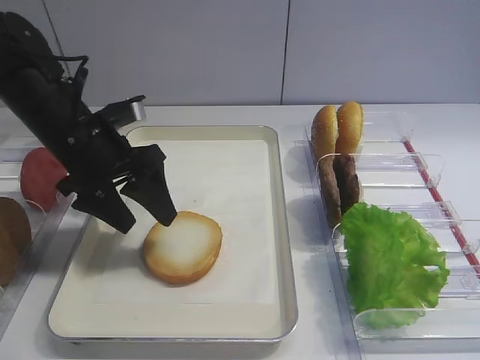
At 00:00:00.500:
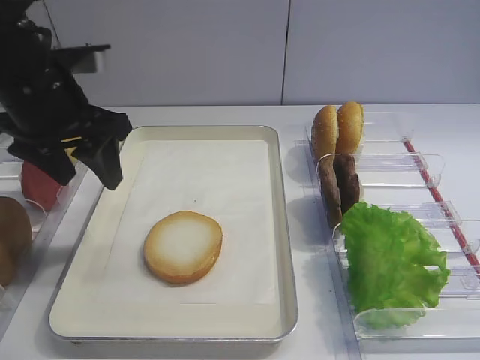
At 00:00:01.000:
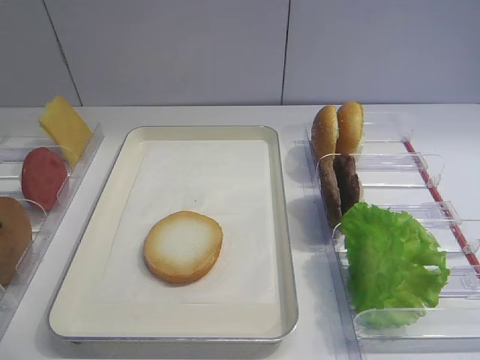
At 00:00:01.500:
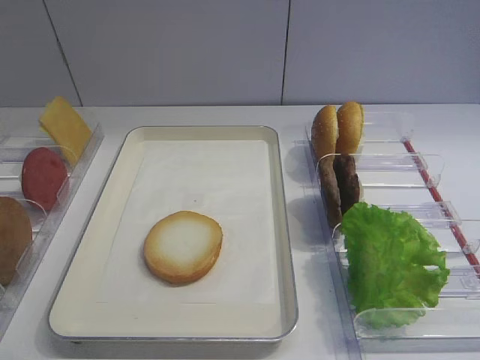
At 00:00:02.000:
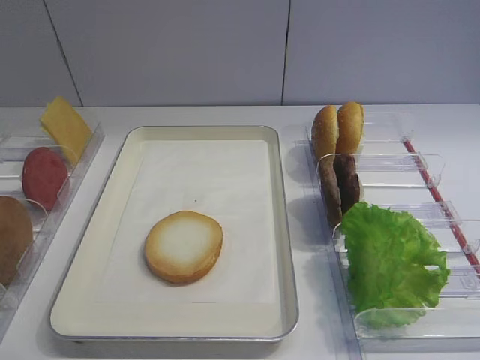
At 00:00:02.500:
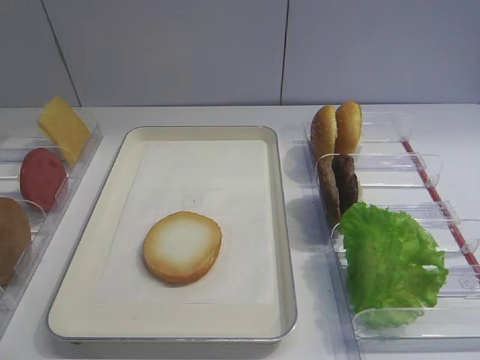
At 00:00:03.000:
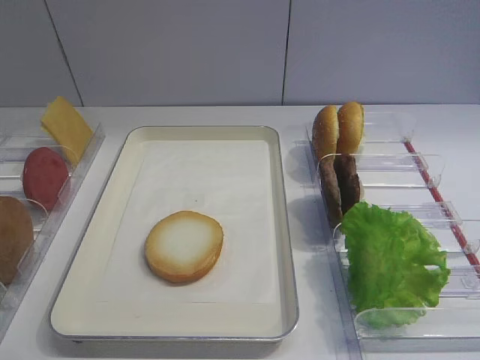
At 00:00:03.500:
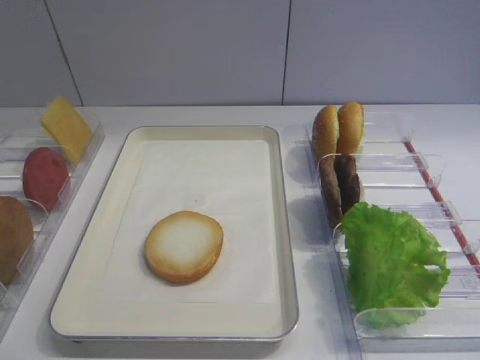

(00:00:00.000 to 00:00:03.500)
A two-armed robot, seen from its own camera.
00:00:00.000 - 00:00:02.000: The left gripper goes some 35 cm backward, and closes.

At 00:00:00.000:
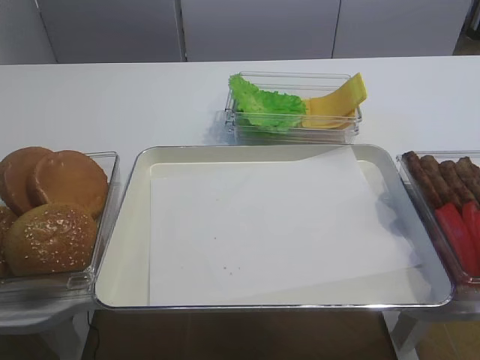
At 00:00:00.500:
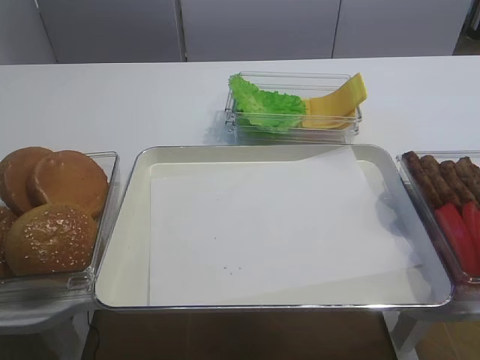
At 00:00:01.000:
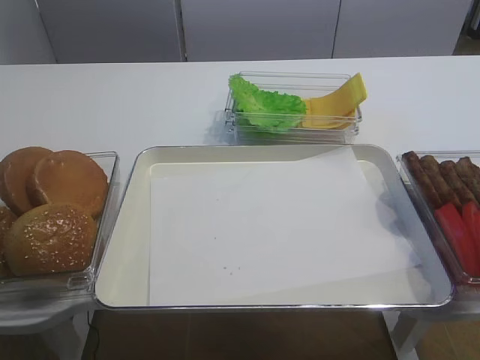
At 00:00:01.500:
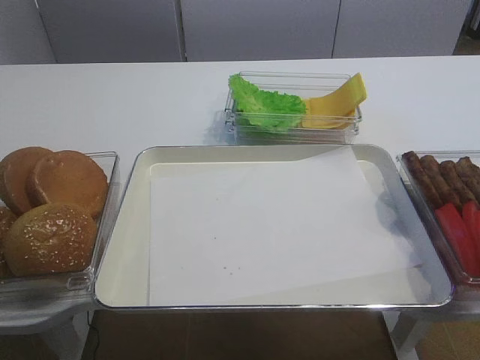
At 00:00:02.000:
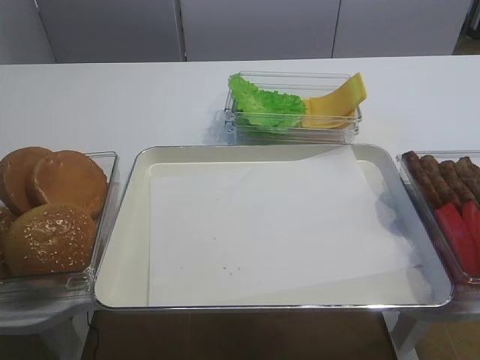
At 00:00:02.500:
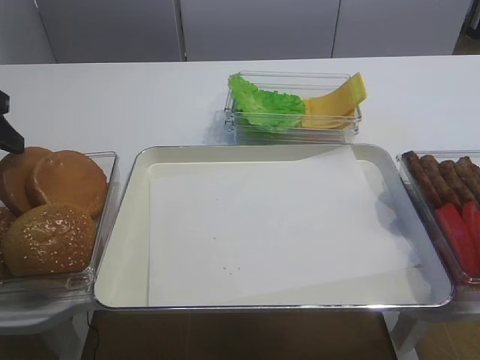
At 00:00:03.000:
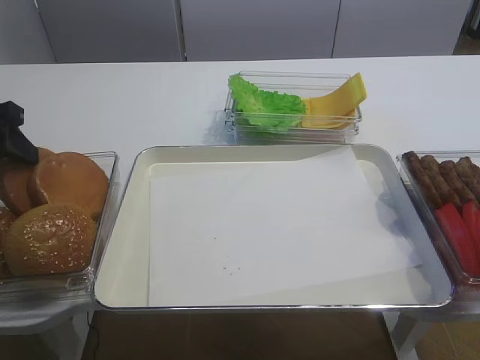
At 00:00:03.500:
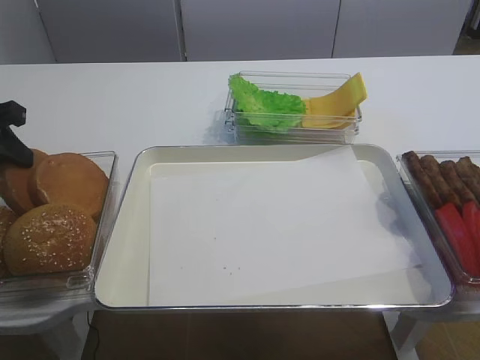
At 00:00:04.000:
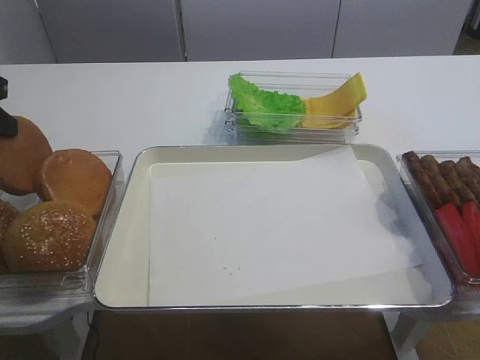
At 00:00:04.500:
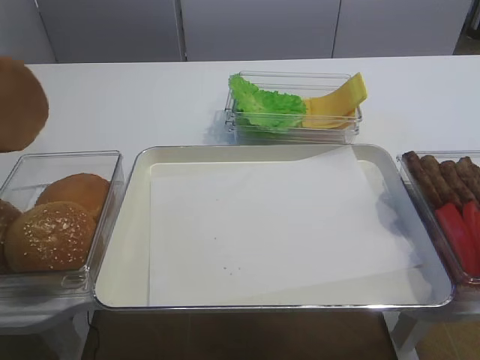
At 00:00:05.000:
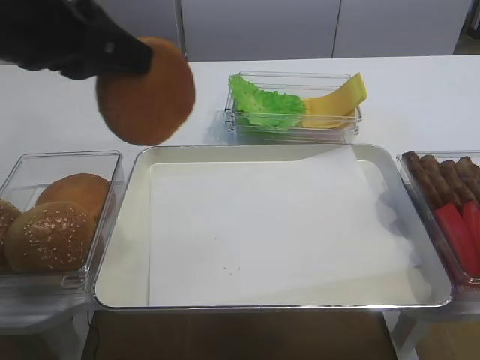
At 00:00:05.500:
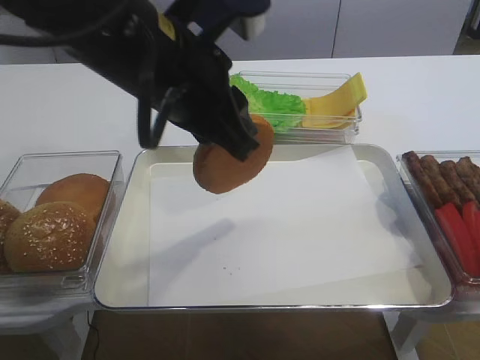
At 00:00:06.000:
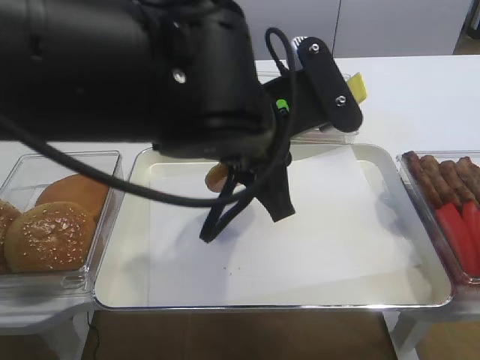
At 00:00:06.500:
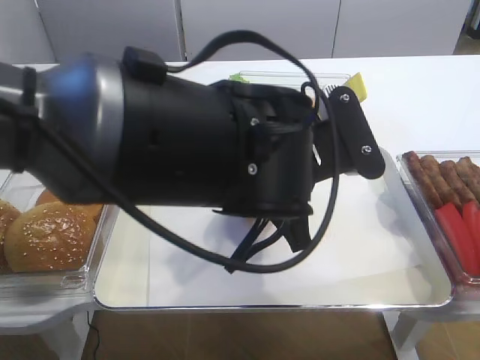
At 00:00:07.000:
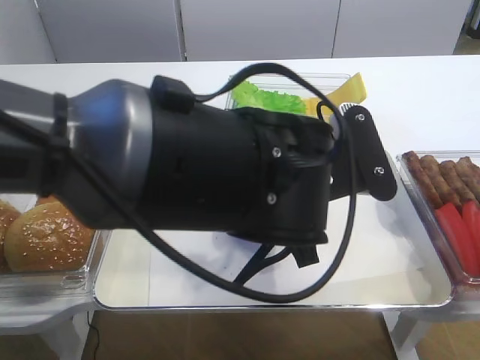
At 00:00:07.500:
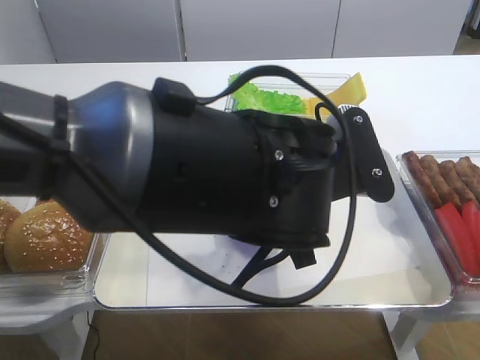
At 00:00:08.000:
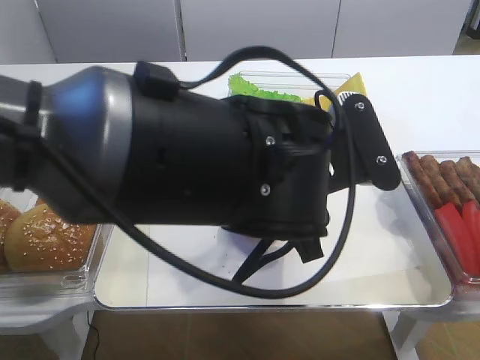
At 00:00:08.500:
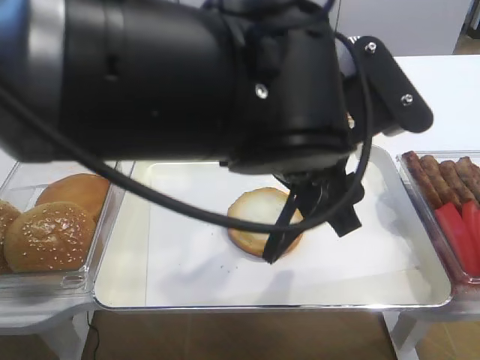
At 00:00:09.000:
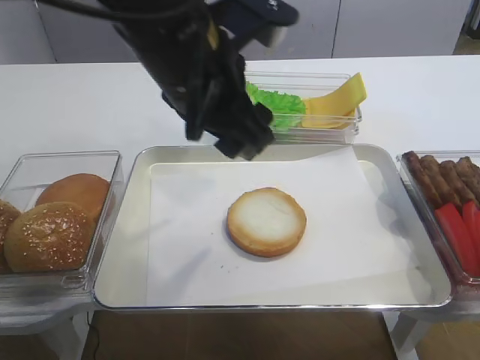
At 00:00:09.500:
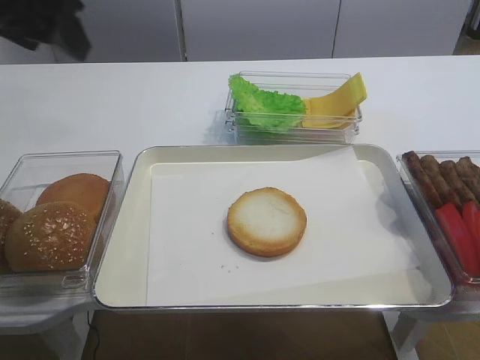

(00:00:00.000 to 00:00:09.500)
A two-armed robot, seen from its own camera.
Step, 00:00:00.000 - 00:00:04.000: Pick up the bread slice with the left gripper.
Step, 00:00:04.500 - 00:00:08.500: Place the bread slice on the tray with the left gripper.
00:00:02.000 - 00:00:04.000: The left gripper goes about 5 cm forward, and closes.
00:00:04.000 - 00:00:05.500: The left gripper heads to the right, covering about 25 cm.
00:00:05.500 - 00:00:07.500: The left gripper moves to the right and downward, about 15 cm, and opens.
00:00:07.500 - 00:00:09.500: The left gripper heads to the left and upward, covering about 30 cm, and opens up.

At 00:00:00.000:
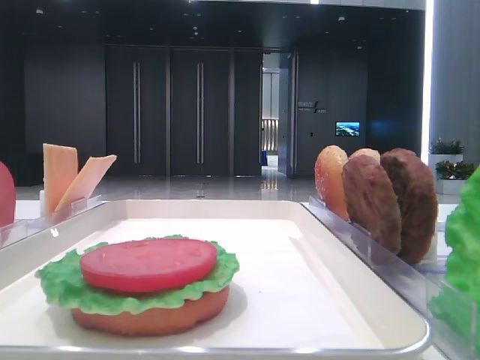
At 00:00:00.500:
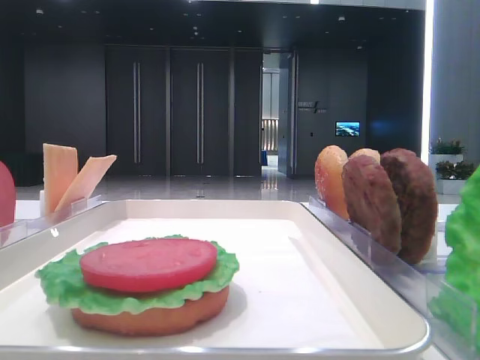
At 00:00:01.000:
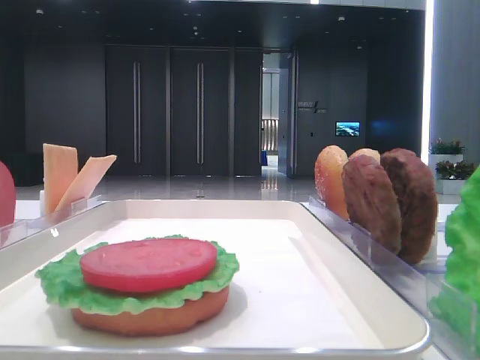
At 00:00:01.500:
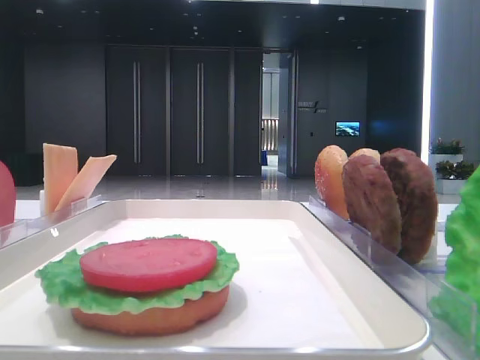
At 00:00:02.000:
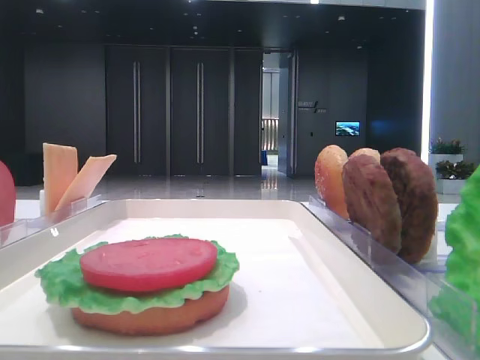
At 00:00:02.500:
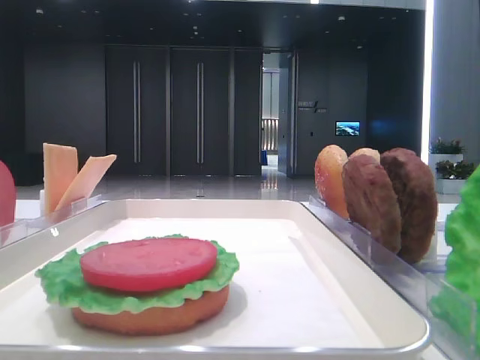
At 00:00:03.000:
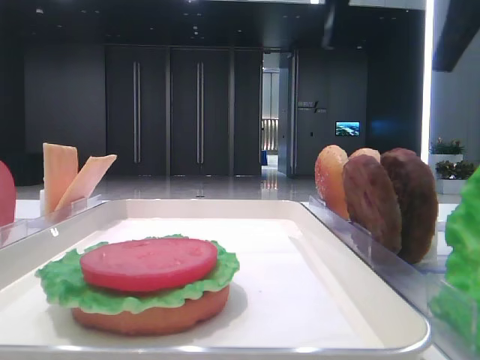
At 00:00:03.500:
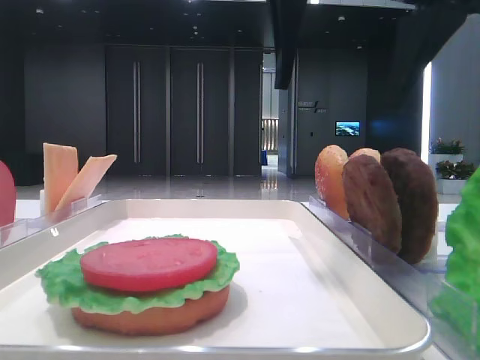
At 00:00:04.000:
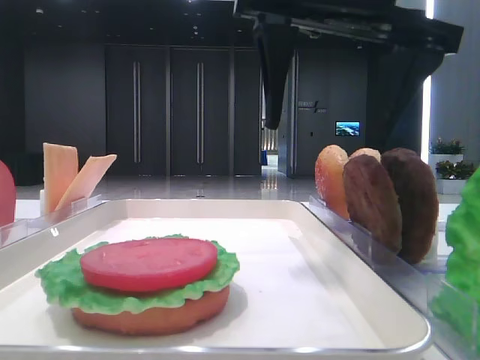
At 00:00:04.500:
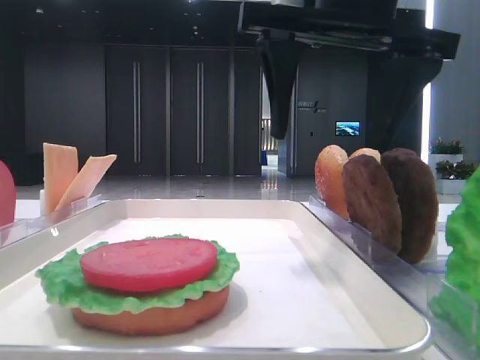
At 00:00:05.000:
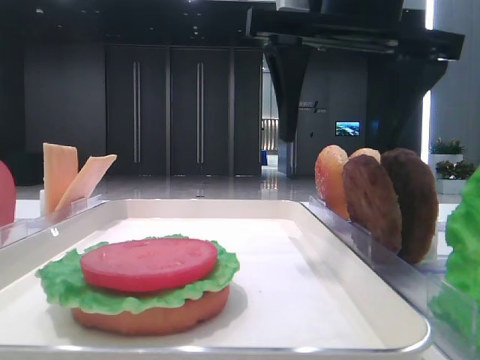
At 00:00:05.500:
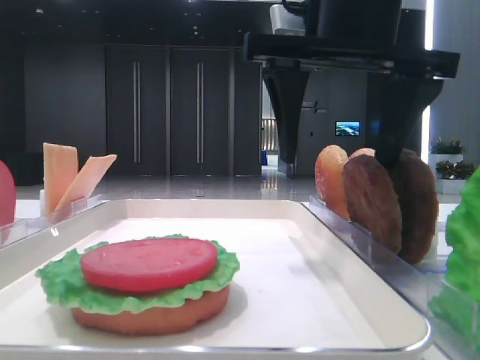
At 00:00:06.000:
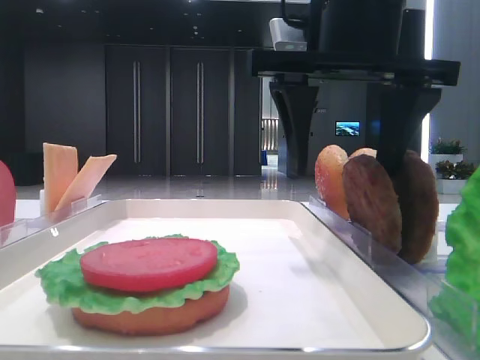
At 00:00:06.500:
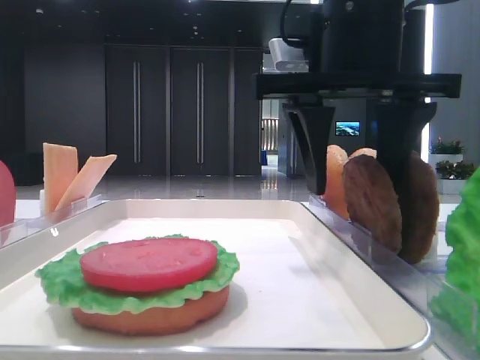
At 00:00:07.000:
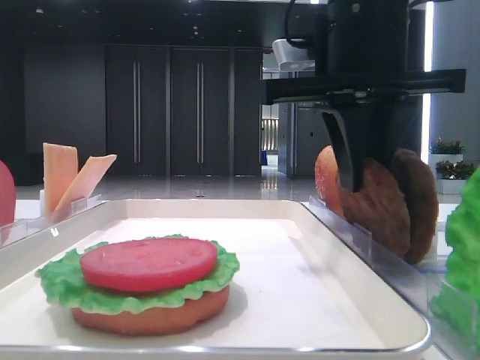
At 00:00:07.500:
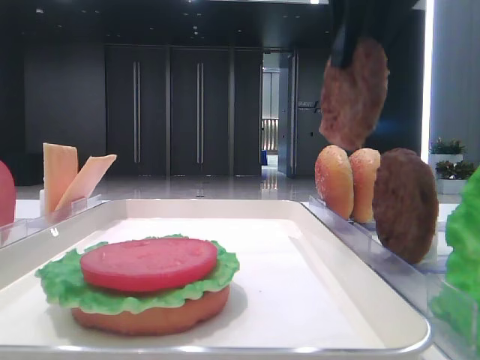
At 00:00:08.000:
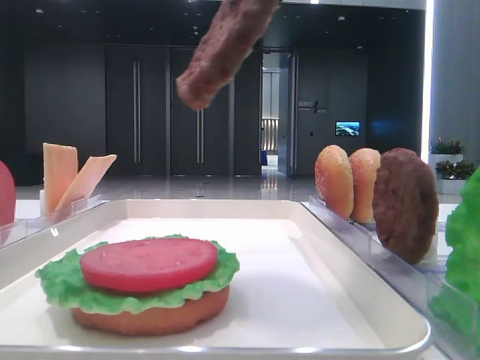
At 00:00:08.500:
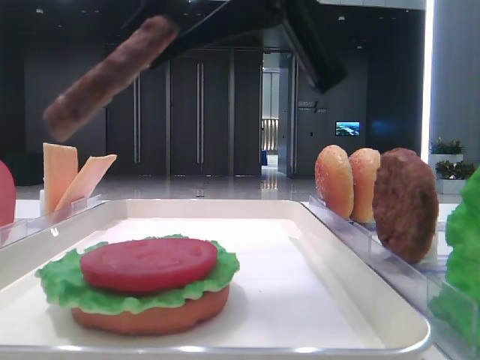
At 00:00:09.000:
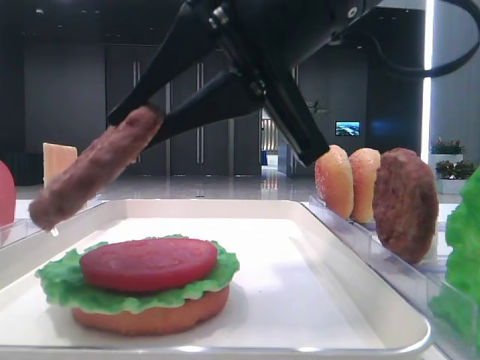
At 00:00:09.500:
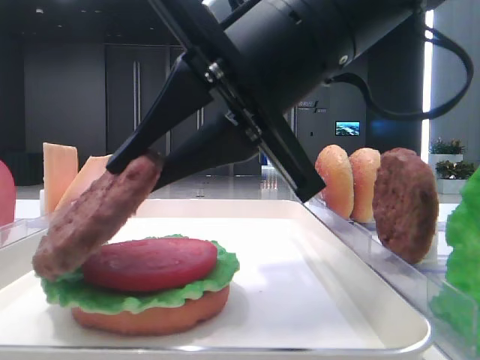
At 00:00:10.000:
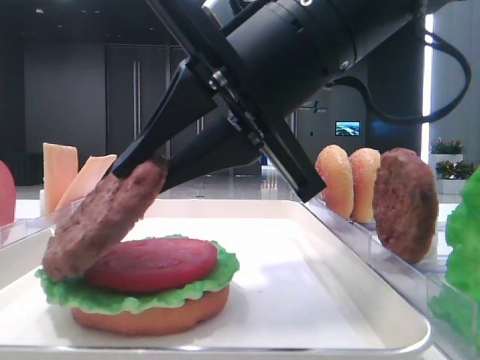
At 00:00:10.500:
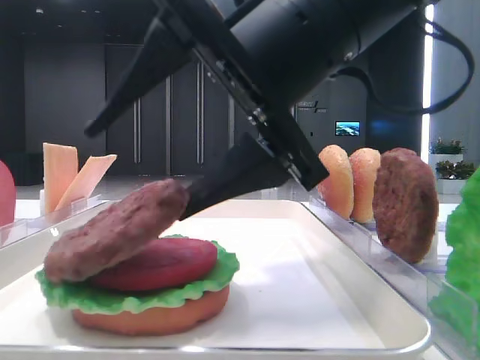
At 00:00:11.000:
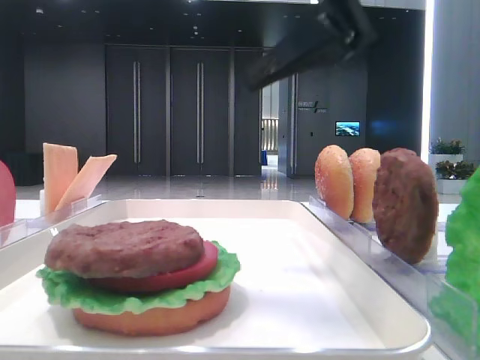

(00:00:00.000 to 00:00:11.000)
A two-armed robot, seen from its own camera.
Step, 00:00:00.000 - 00:00:07.000: Grab the patty with the right hand.
Step, 00:00:07.500 - 00:00:10.500: Place the patty on the tomato slice with the right hand.
00:00:02.000 - 00:00:03.500: The right gripper goes about 20 cm to the left.
00:00:03.500 - 00:00:05.500: The right gripper changes place by some 5 cm.
00:00:05.500 - 00:00:07.500: The right gripper is displaced upward by about 5 cm, and closes its fingers.
00:00:07.500 - 00:00:09.000: The right gripper moves downward and to the left, about 10 cm.
00:00:09.000 - 00:00:11.000: The right gripper travels upward by about 5 cm, and opens its fingers.

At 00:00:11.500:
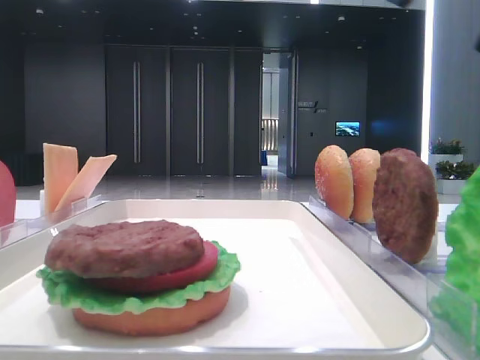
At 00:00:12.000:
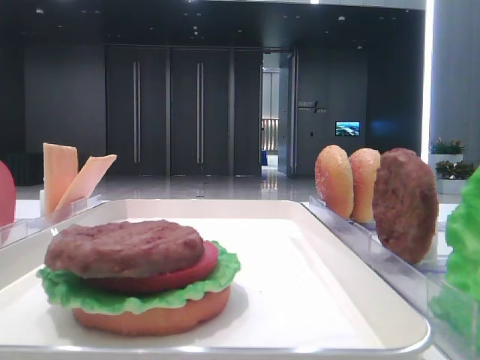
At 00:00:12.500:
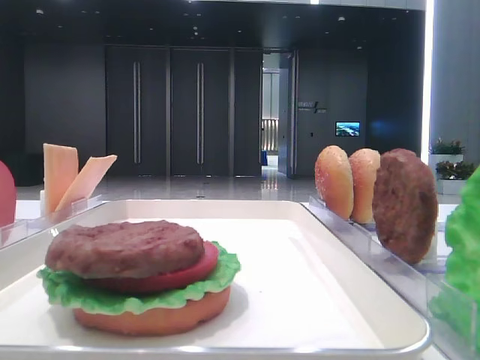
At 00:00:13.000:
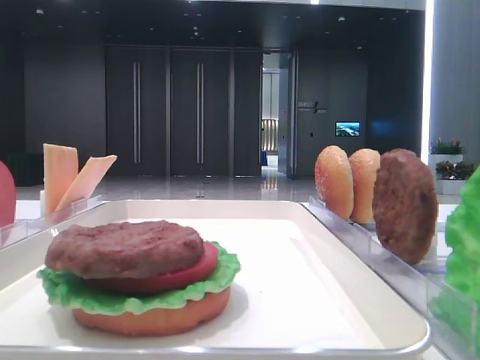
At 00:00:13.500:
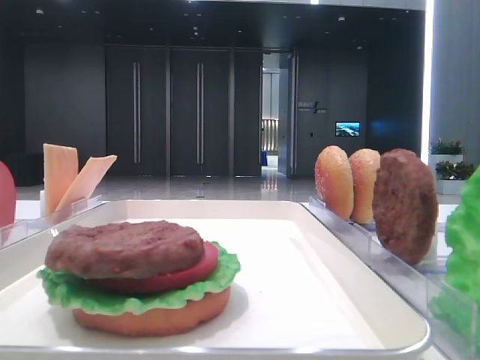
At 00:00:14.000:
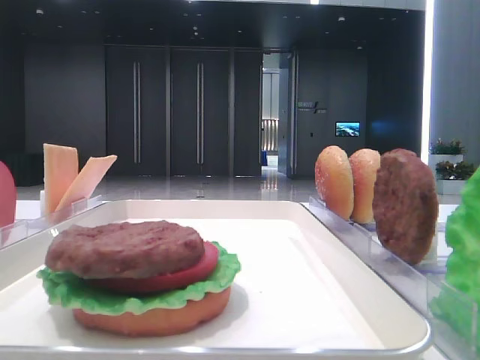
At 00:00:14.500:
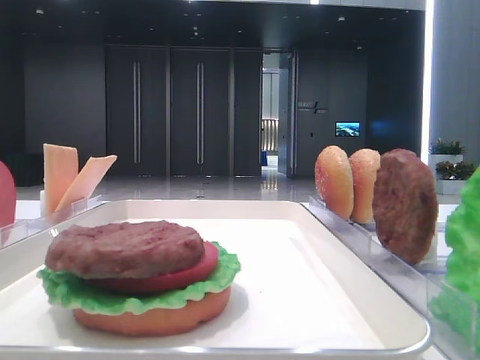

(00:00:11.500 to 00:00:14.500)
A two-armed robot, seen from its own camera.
00:00:13.000 - 00:00:14.500: Neither gripper changes place.
